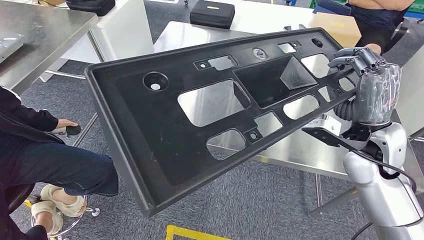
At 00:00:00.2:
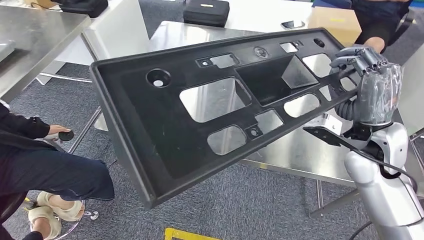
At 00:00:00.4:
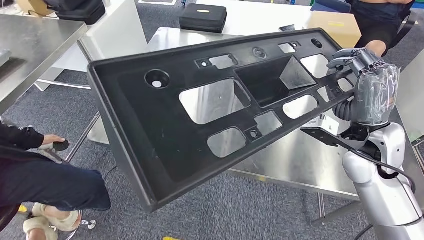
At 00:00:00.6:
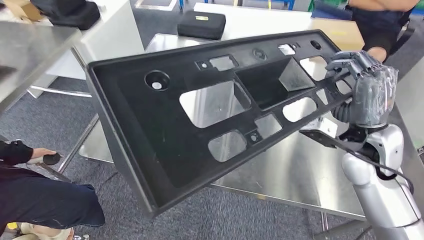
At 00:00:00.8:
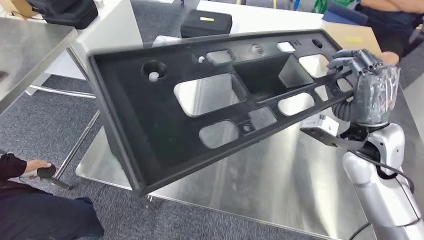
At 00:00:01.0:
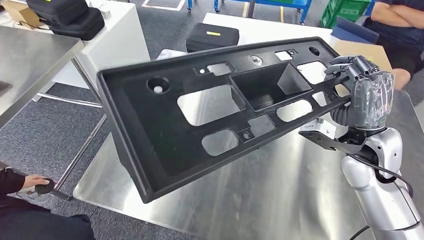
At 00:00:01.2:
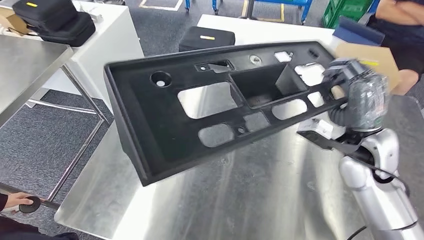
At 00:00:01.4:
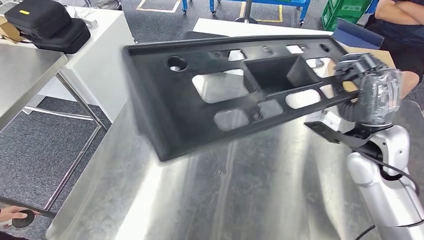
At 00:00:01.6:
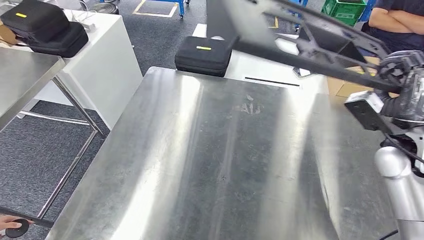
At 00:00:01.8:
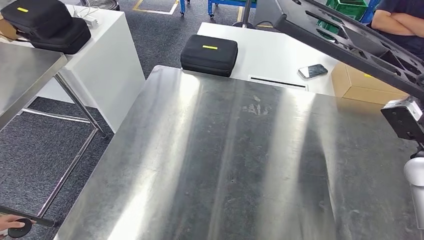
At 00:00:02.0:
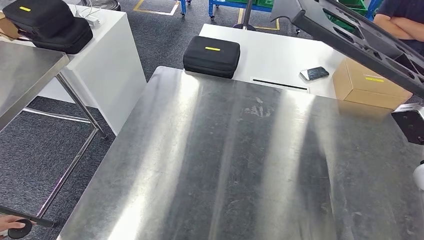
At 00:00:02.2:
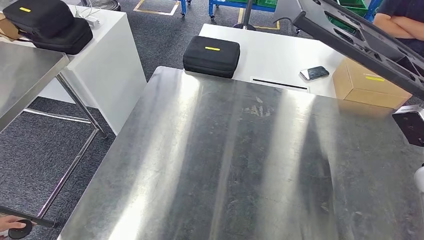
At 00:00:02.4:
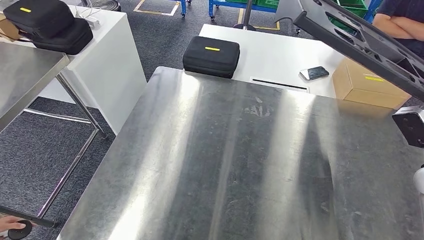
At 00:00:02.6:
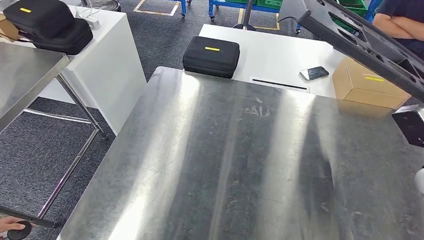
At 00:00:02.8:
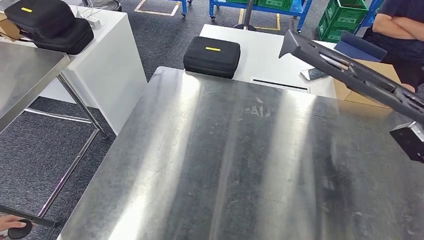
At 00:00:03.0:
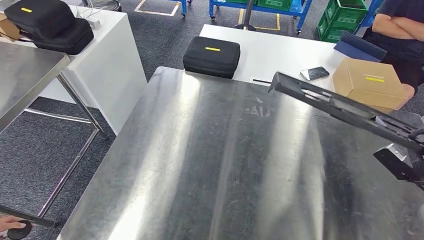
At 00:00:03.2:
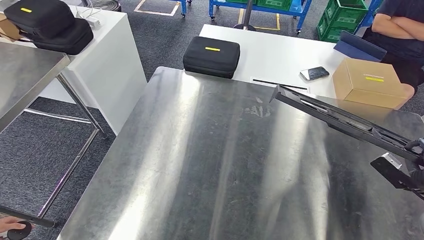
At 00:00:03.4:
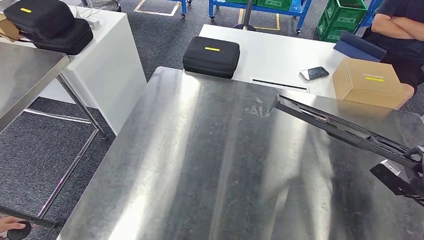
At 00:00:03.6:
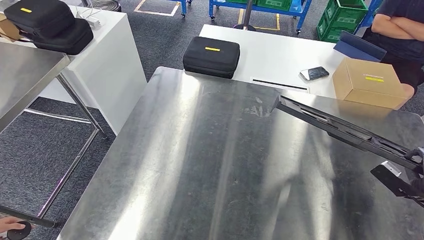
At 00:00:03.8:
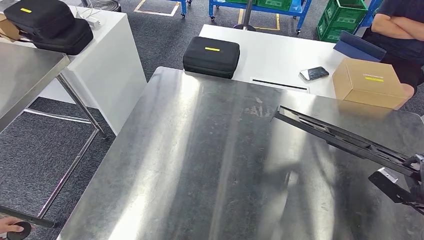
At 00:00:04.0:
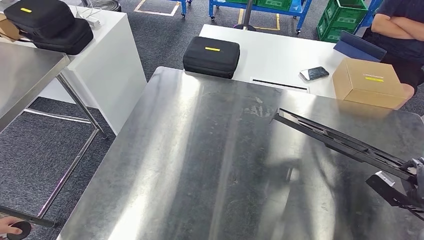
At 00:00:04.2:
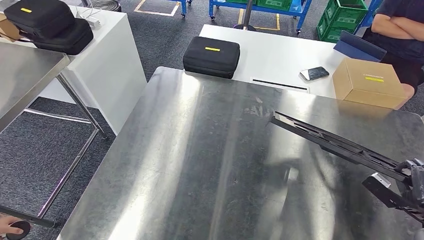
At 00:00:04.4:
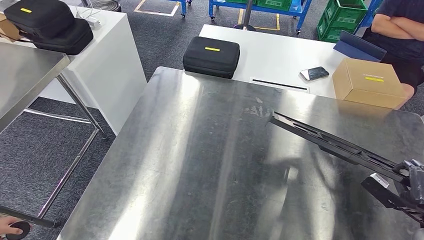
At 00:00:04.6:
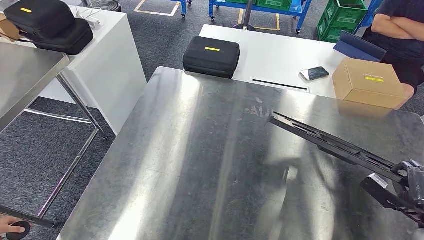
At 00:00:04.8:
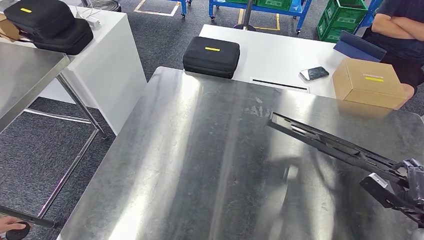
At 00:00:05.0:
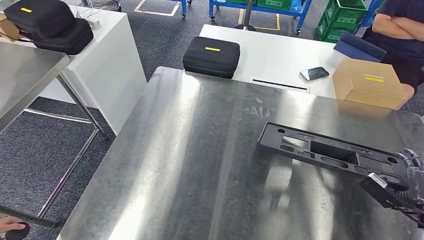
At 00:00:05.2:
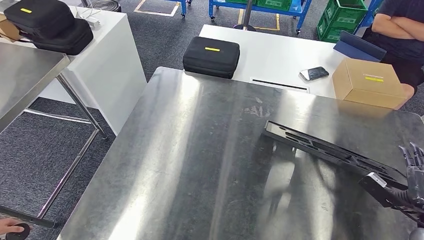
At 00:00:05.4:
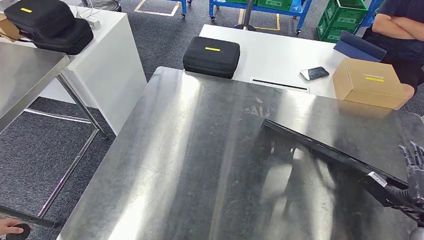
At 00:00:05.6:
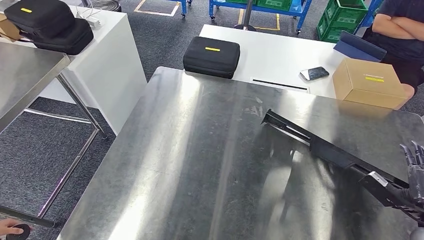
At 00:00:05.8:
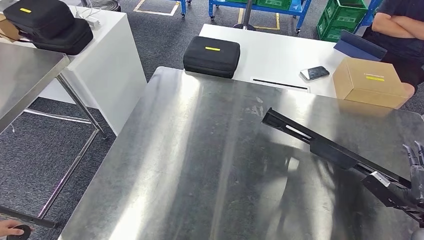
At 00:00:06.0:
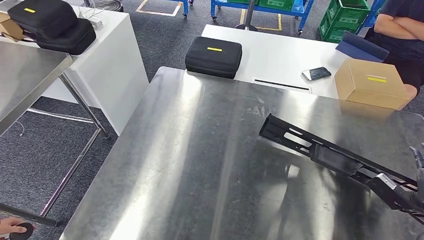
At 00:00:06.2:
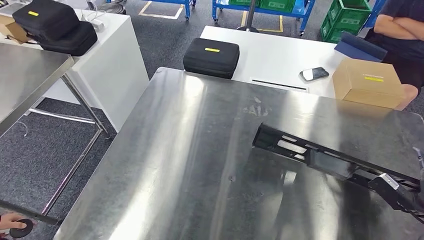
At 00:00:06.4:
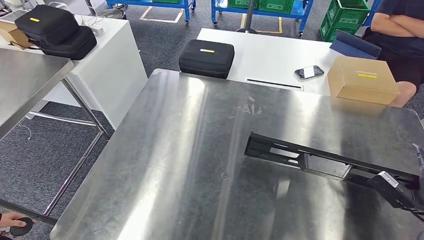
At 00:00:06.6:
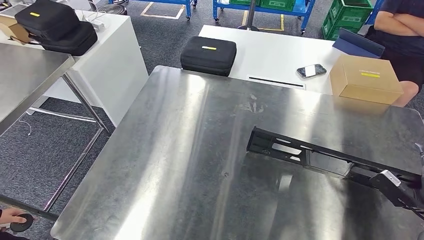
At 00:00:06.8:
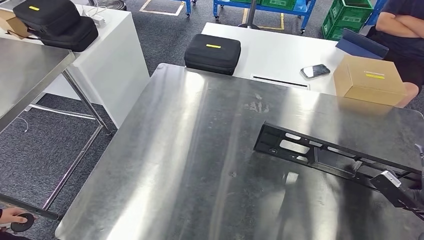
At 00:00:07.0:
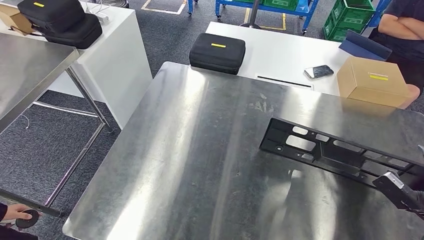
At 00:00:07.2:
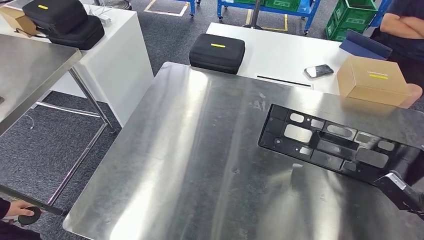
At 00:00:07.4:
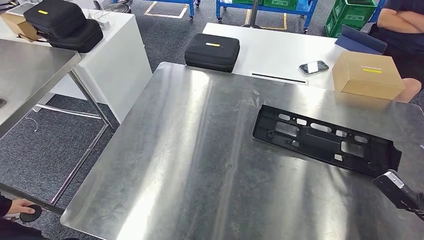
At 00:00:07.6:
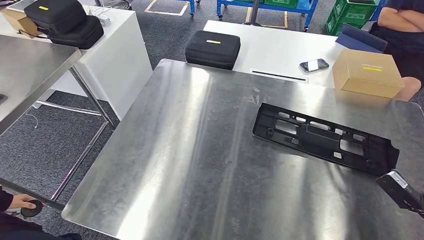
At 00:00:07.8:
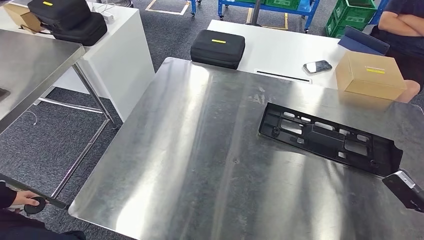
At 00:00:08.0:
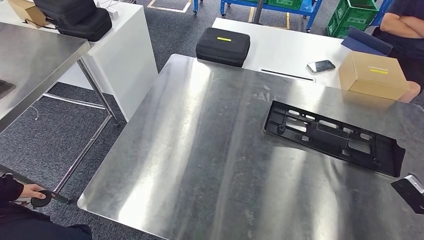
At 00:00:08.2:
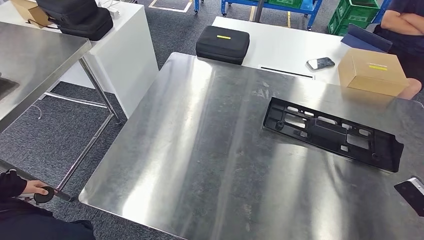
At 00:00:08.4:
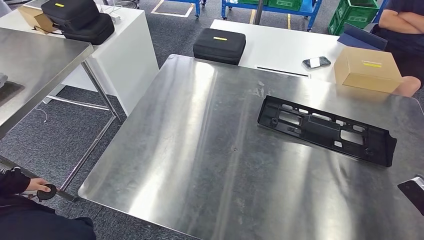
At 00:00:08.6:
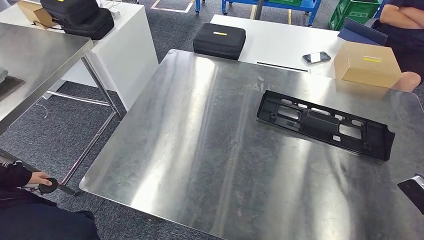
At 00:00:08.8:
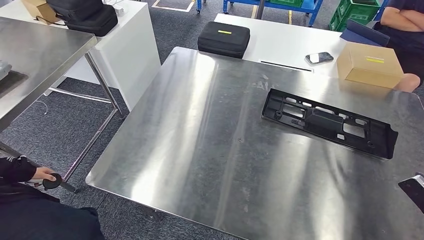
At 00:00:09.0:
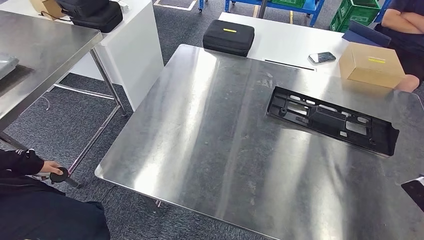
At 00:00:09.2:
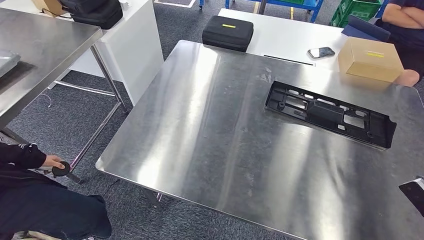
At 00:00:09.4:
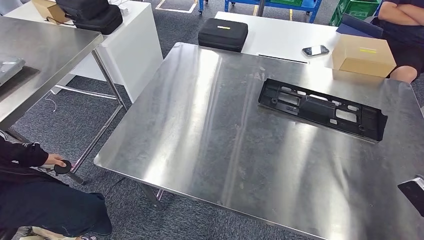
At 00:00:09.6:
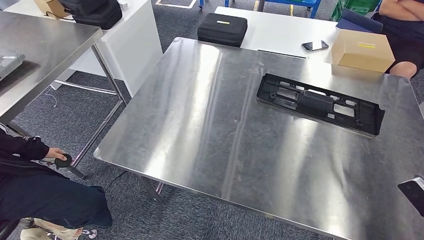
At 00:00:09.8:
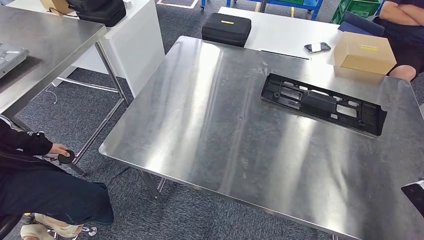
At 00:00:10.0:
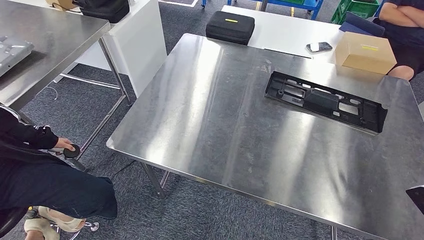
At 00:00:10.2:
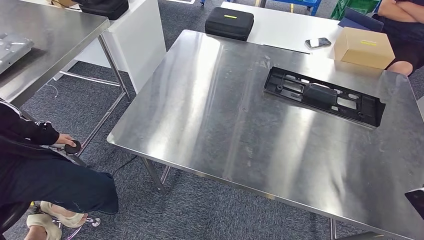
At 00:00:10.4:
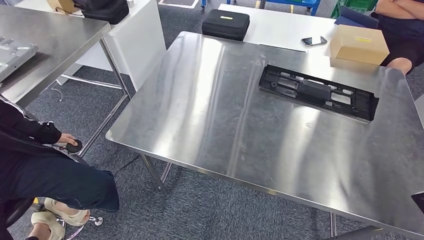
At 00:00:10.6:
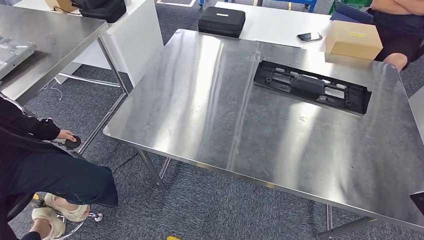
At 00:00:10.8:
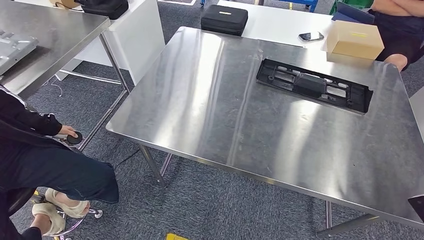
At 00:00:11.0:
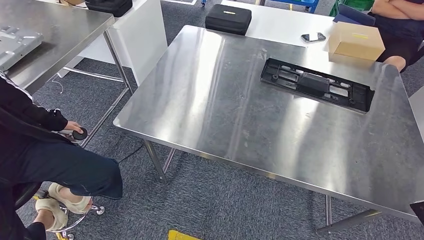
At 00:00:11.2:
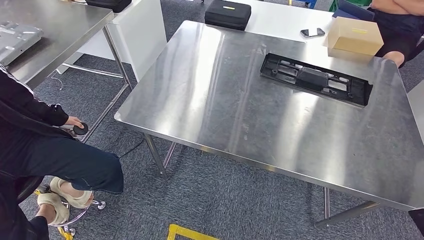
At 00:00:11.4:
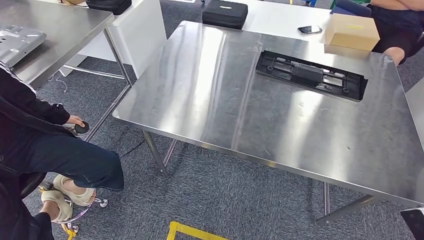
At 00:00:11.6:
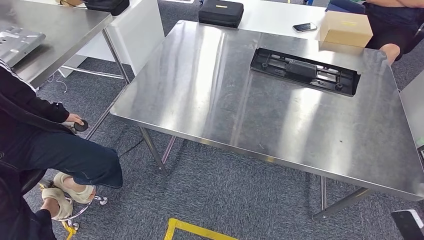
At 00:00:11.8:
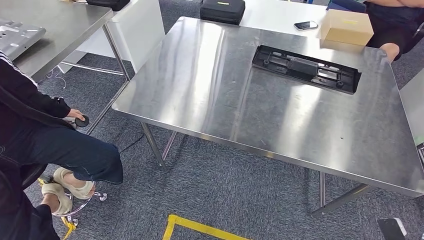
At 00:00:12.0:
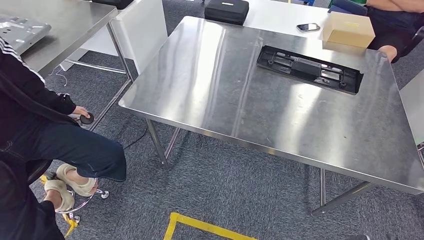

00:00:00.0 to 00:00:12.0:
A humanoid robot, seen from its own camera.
Step, 00:00:00.0 to 00:00:05.6: Insert the large material into the corresponding slot on the workbench.
00:00:03.0 to 00:00:04.4: The right hand heads downward, covering some 5 cm.
00:00:04.4 to 00:00:06.0: Neither hand changes place.

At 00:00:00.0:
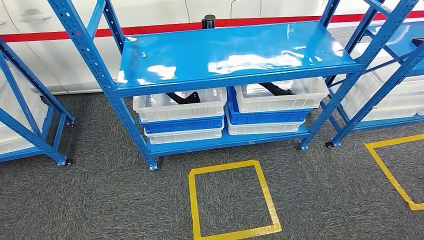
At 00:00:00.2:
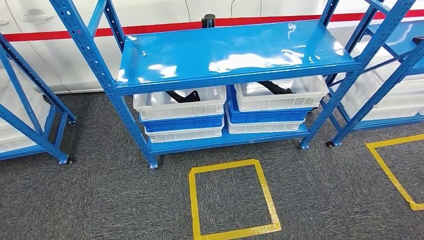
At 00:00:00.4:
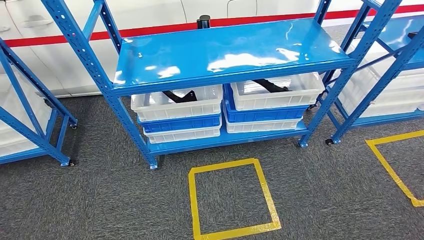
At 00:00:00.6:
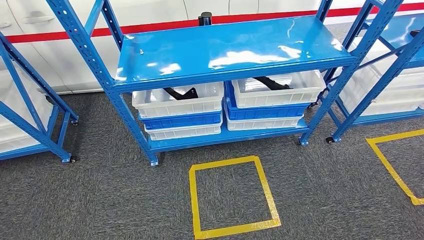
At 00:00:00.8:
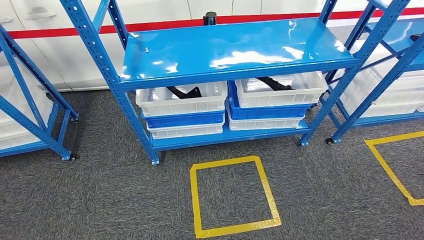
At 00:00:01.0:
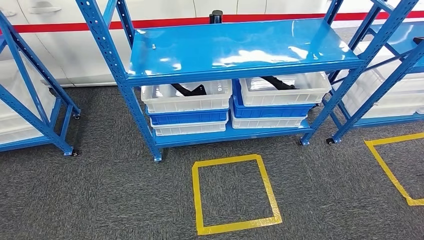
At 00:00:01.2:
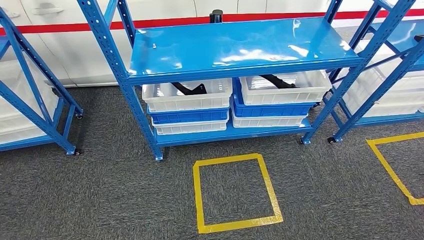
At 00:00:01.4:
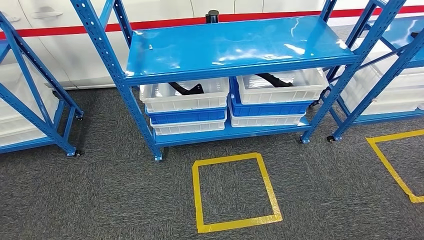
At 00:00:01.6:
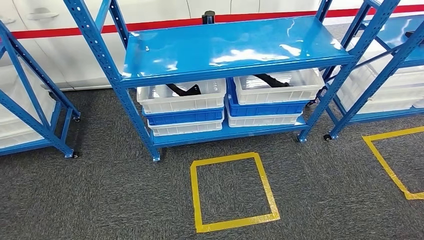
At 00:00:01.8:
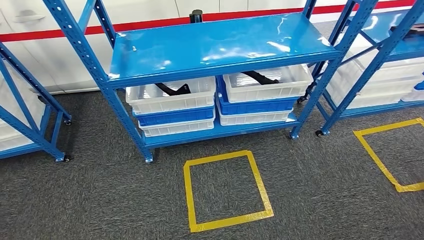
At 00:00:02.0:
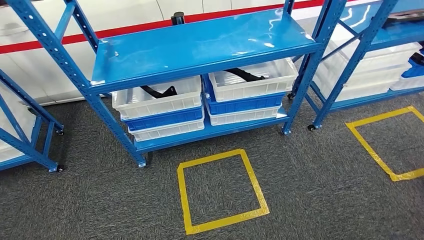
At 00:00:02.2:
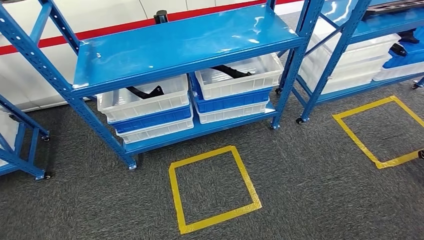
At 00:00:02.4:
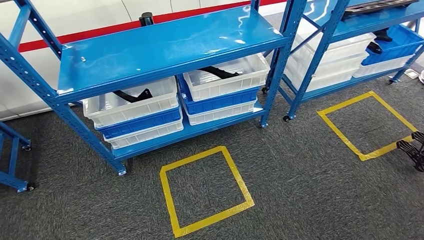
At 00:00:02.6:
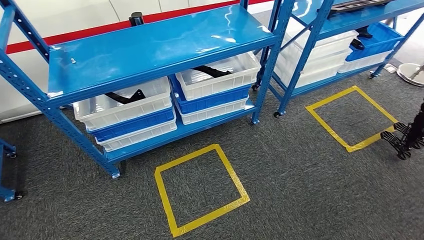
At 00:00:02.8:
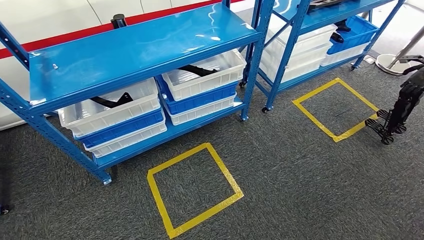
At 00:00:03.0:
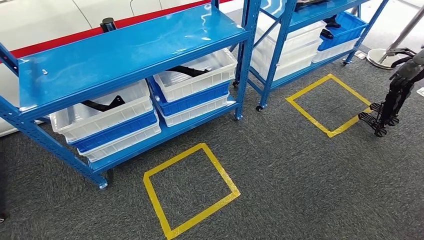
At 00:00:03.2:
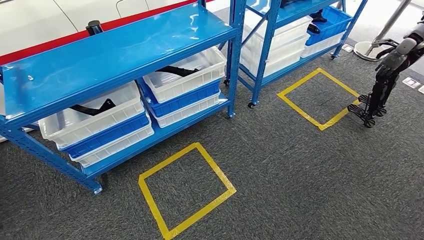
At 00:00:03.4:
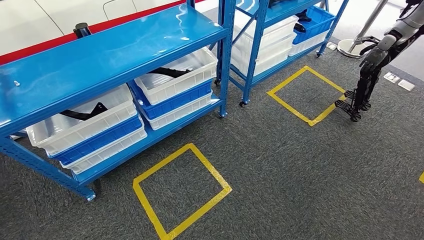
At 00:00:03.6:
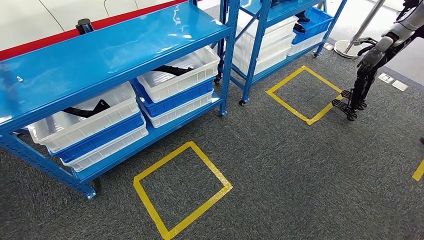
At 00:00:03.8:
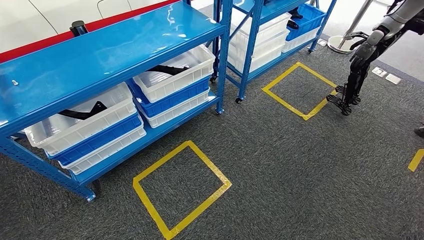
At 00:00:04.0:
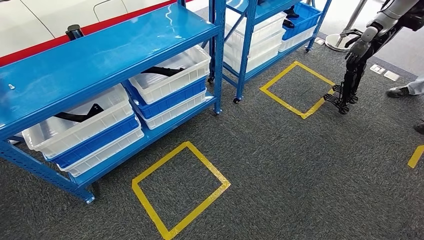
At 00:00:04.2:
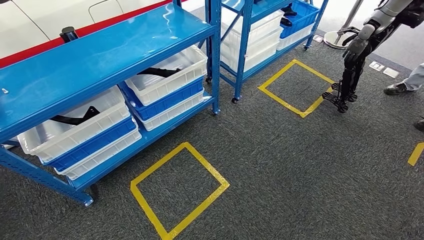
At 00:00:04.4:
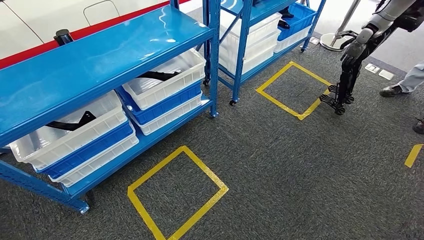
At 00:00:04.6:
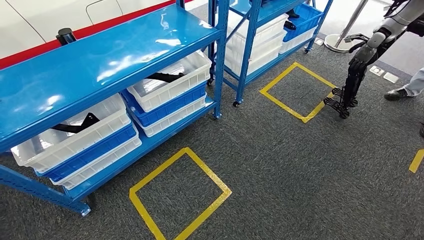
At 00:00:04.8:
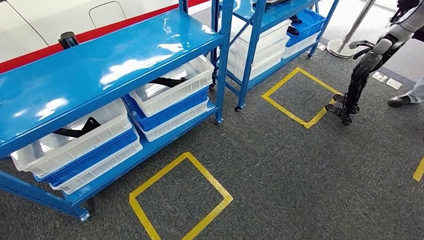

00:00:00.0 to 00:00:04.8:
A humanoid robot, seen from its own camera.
Step, 00:00:00.0 to 00:00:04.8: Move to the initial position of the shelf.
